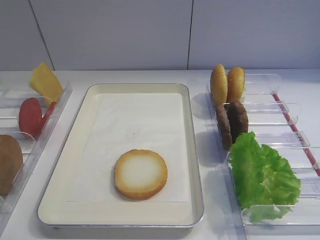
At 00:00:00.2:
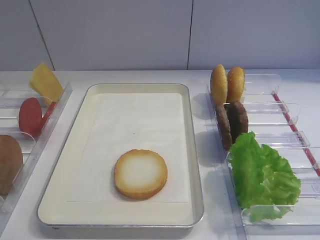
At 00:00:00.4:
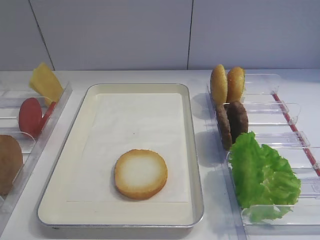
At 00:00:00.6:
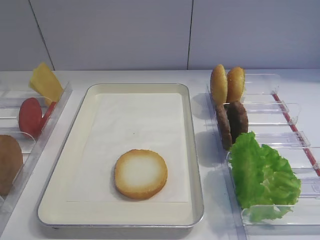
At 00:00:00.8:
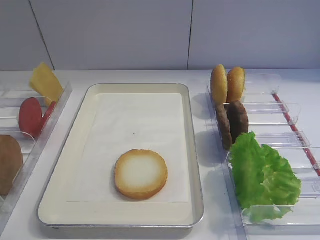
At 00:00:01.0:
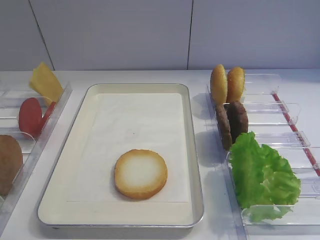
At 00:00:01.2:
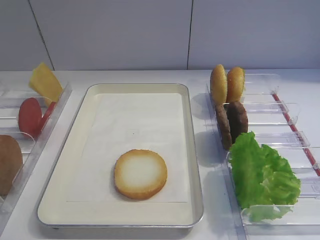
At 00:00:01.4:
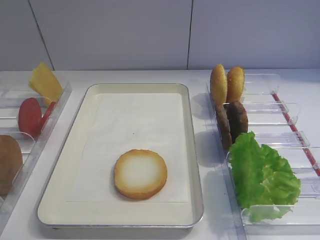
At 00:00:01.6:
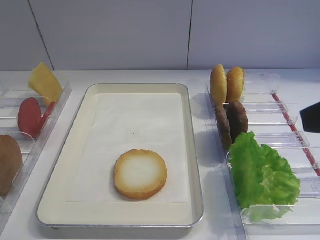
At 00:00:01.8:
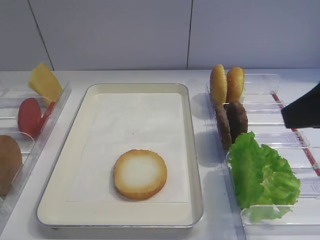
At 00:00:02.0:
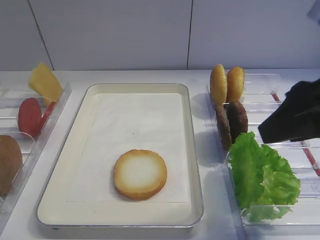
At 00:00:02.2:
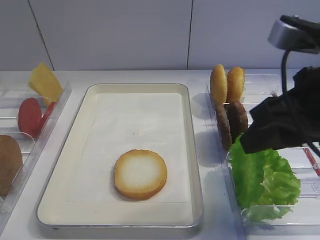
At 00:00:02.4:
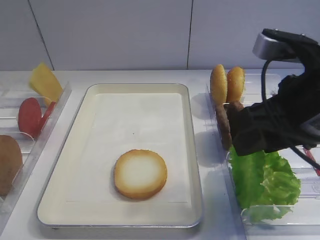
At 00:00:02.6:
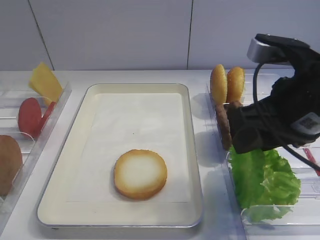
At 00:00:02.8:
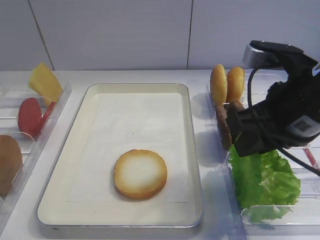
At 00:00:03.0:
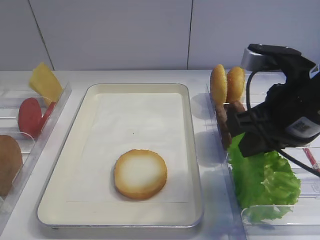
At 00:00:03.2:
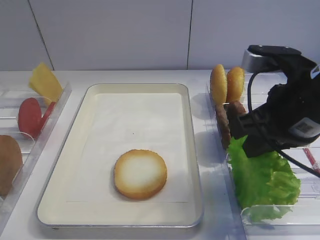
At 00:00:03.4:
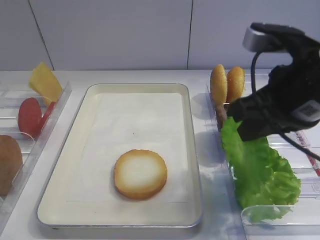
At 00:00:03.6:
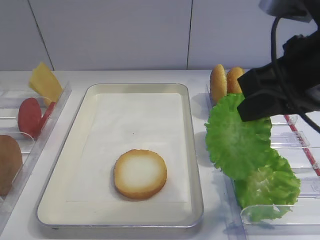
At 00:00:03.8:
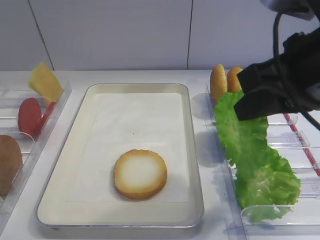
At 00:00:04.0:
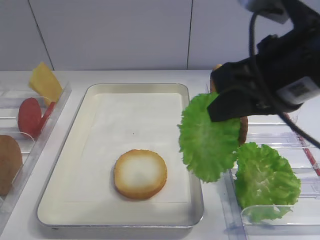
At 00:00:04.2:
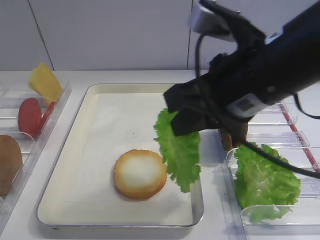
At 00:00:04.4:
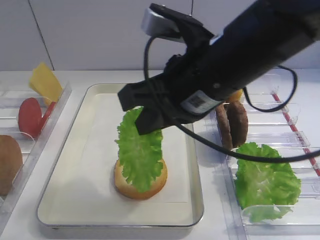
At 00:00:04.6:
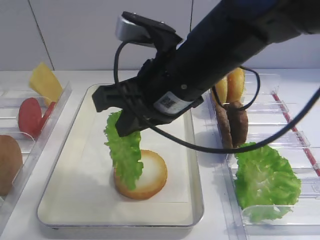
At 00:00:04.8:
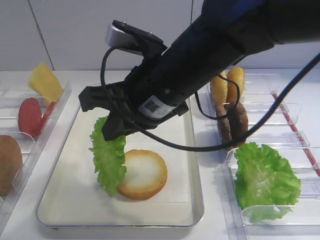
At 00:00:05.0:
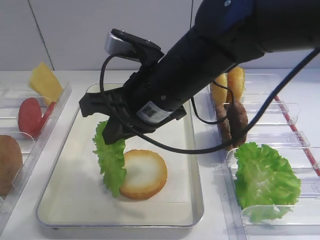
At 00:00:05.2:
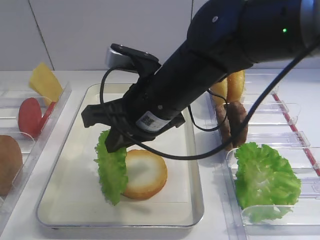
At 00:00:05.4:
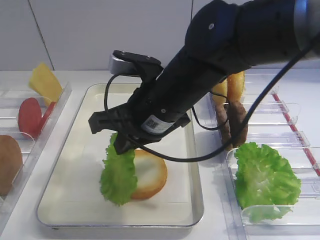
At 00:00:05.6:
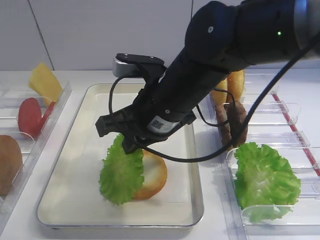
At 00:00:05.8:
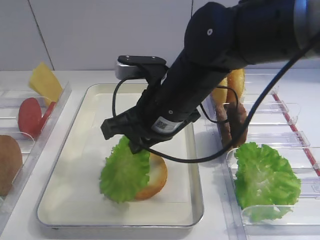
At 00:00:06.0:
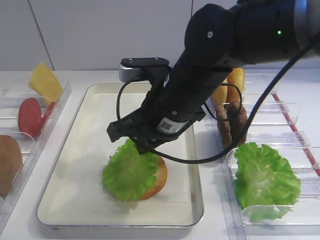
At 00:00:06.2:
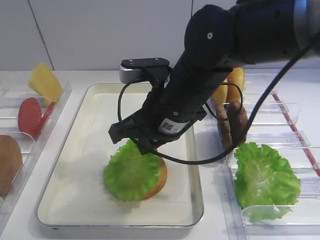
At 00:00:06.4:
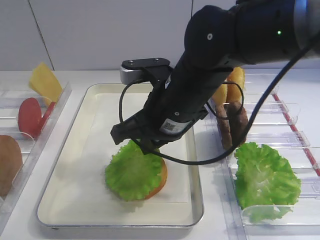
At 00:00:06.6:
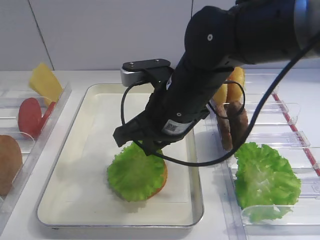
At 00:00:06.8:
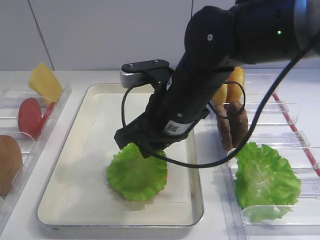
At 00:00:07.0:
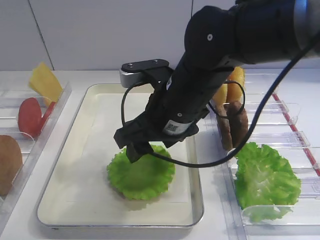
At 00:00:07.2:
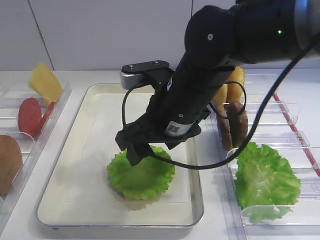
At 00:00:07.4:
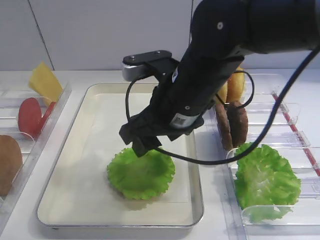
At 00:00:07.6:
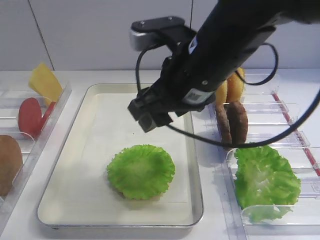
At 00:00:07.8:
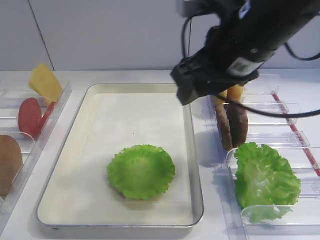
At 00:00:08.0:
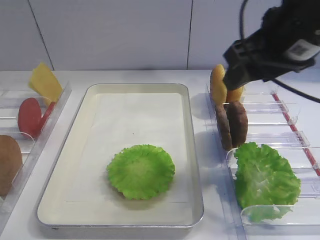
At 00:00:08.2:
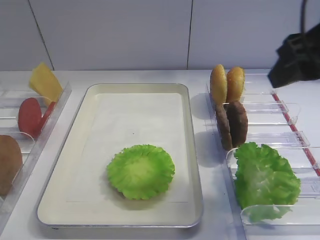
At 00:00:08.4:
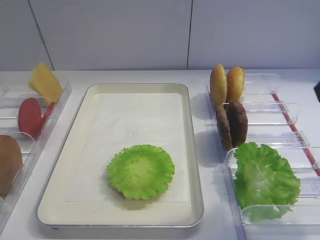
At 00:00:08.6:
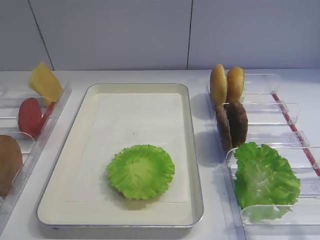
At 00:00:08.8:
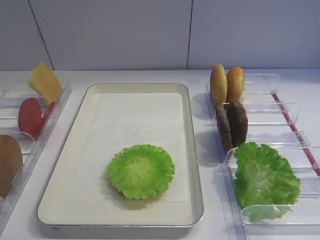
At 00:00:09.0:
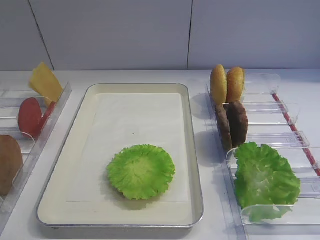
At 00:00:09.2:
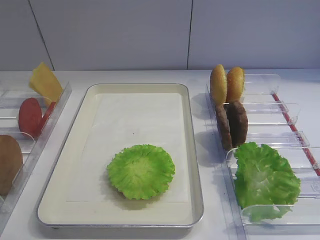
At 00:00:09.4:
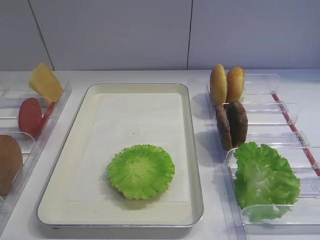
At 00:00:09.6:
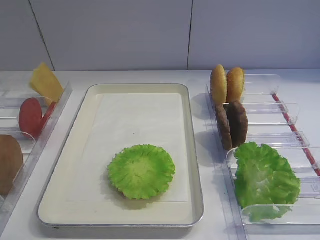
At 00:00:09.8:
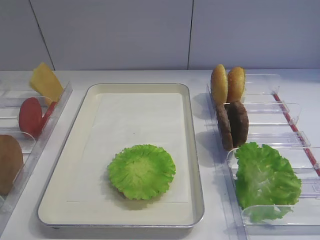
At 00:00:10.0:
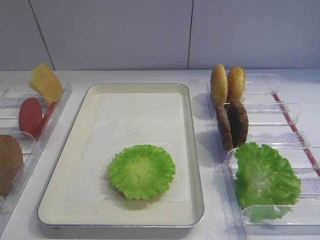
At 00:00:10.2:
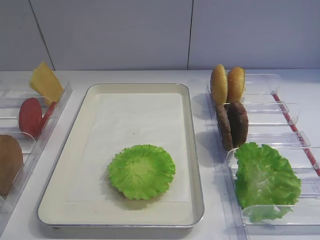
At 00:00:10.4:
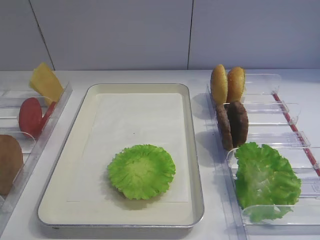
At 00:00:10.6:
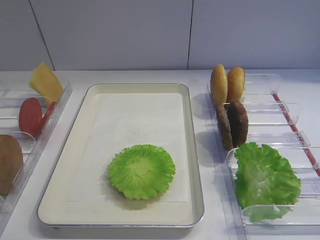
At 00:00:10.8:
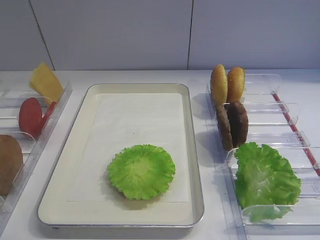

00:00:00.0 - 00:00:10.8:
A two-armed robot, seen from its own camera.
Step, 00:00:00.0 - 00:00:03.6: Pick up the lettuce leaf with the right gripper.
Step, 00:00:03.8 - 00:00:07.0: Place the lettuce leaf on the bread slice with the right gripper.
00:00:01.6 - 00:00:03.0: The right gripper heads forward, downward and to the left, covering roughly 15 cm, and closes up.
00:00:03.0 - 00:00:04.6: The right gripper moves to the left, some 15 cm.
00:00:04.6 - 00:00:06.2: The right gripper goes approximately 5 cm downward.
00:00:06.2 - 00:00:07.8: The right gripper heads upward and to the right, covering about 10 cm, and opens.
00:00:07.8 - 00:00:09.2: The right gripper moves backward and to the right, some 30 cm.

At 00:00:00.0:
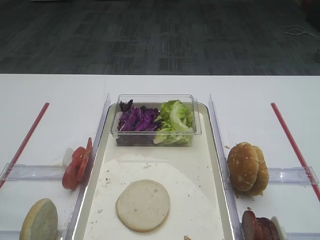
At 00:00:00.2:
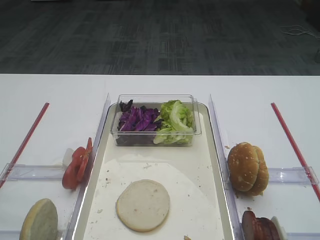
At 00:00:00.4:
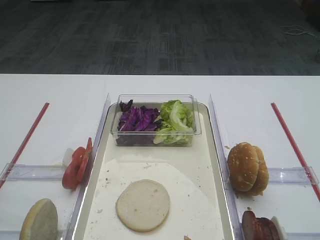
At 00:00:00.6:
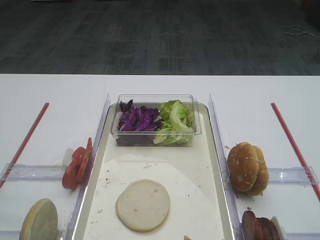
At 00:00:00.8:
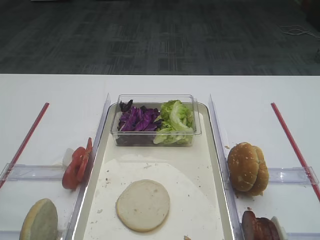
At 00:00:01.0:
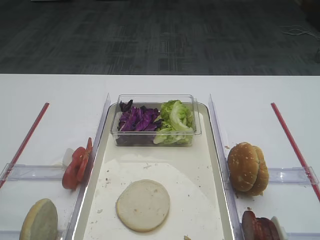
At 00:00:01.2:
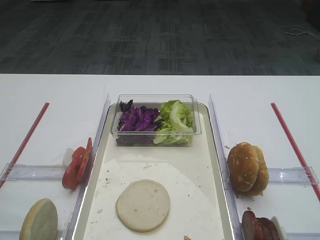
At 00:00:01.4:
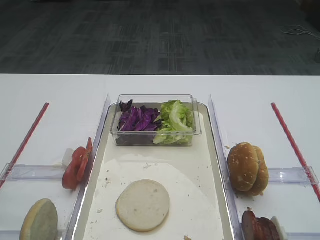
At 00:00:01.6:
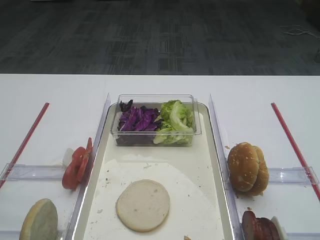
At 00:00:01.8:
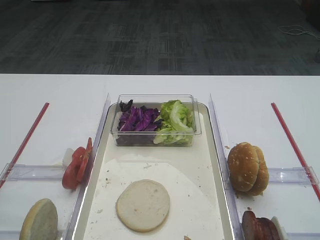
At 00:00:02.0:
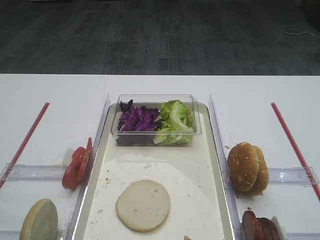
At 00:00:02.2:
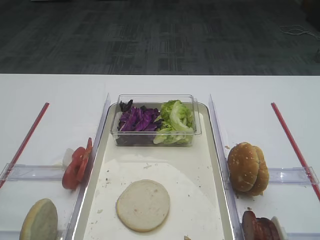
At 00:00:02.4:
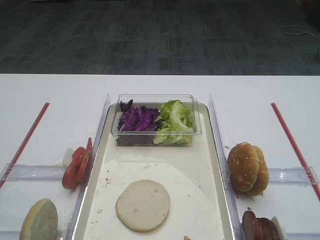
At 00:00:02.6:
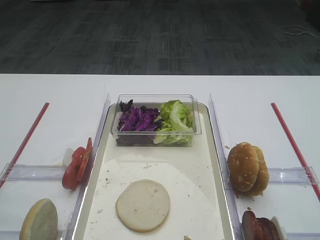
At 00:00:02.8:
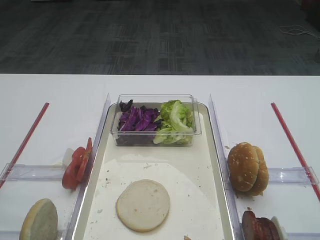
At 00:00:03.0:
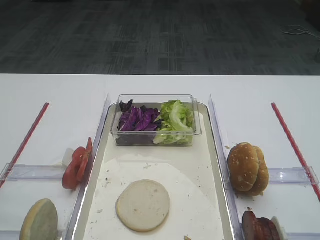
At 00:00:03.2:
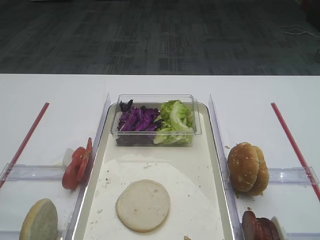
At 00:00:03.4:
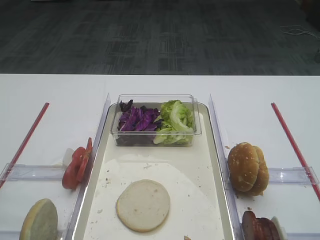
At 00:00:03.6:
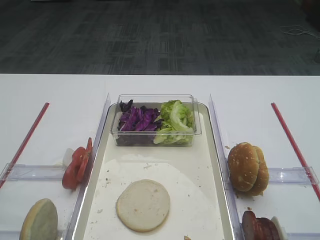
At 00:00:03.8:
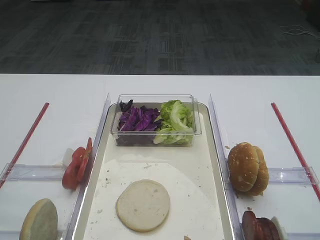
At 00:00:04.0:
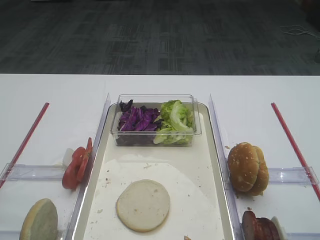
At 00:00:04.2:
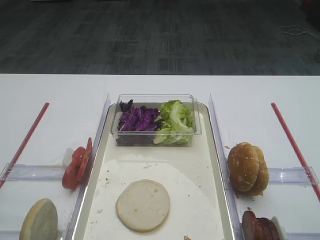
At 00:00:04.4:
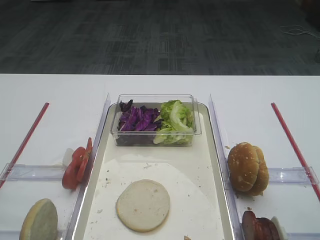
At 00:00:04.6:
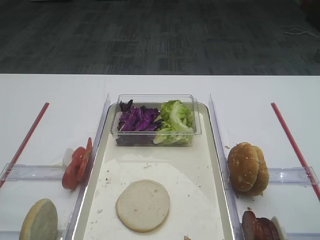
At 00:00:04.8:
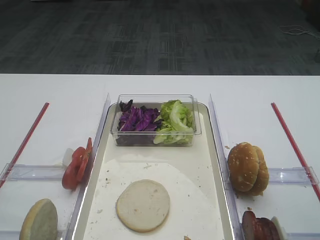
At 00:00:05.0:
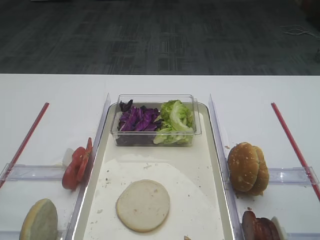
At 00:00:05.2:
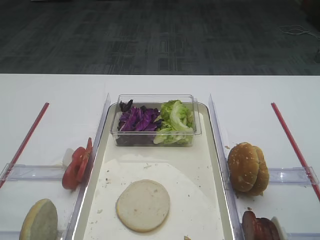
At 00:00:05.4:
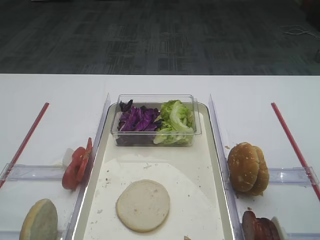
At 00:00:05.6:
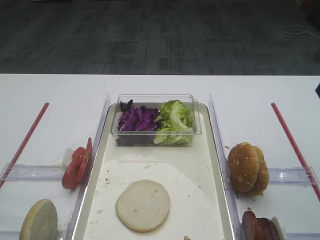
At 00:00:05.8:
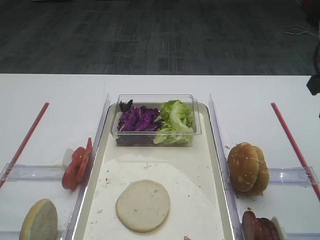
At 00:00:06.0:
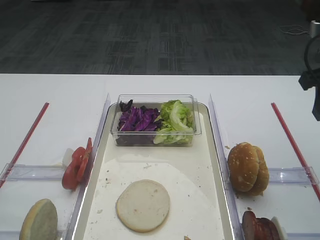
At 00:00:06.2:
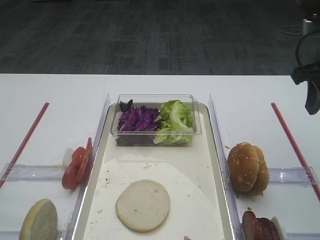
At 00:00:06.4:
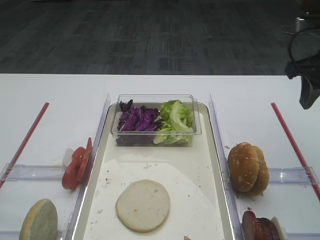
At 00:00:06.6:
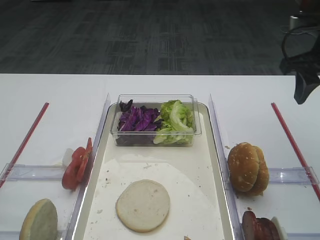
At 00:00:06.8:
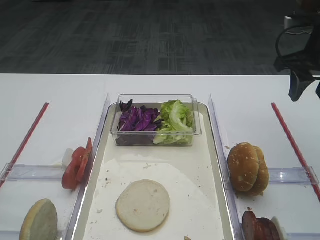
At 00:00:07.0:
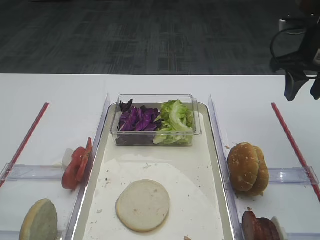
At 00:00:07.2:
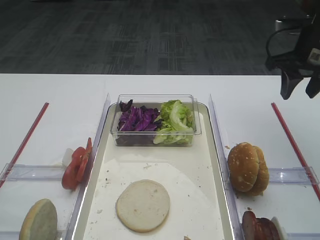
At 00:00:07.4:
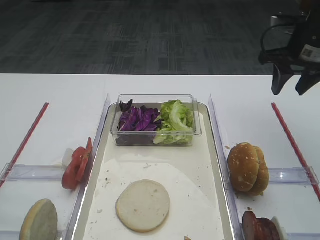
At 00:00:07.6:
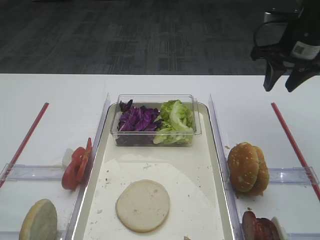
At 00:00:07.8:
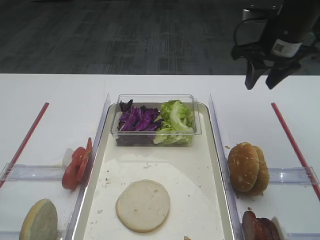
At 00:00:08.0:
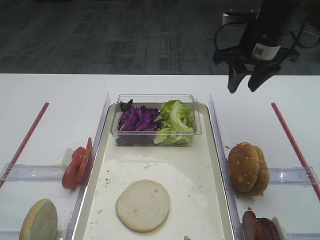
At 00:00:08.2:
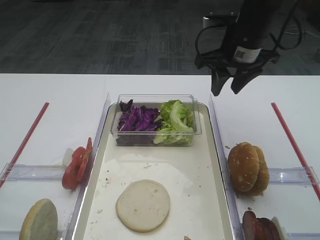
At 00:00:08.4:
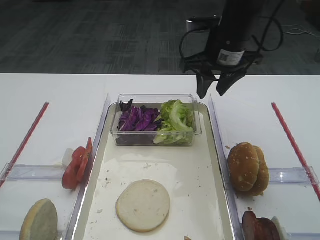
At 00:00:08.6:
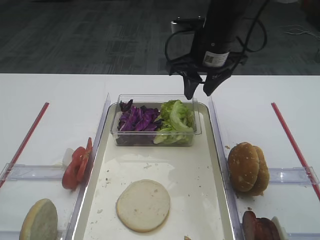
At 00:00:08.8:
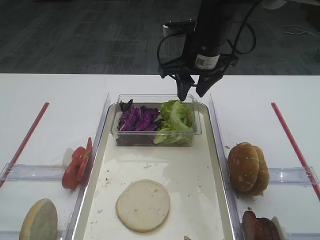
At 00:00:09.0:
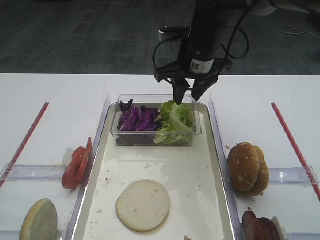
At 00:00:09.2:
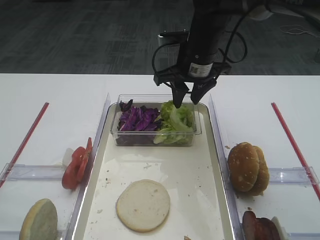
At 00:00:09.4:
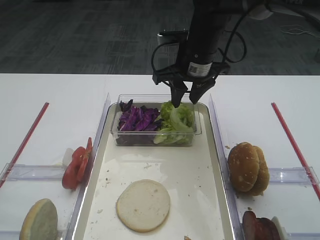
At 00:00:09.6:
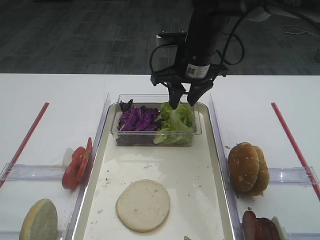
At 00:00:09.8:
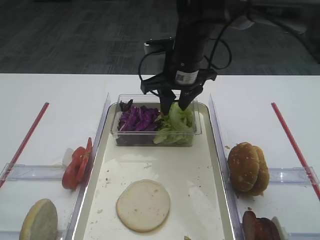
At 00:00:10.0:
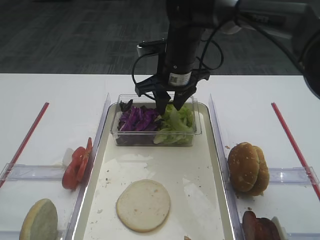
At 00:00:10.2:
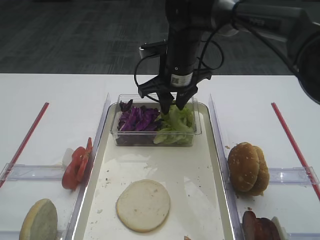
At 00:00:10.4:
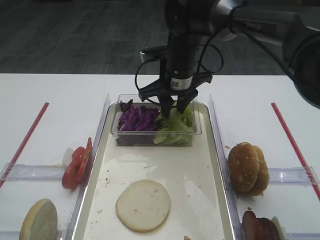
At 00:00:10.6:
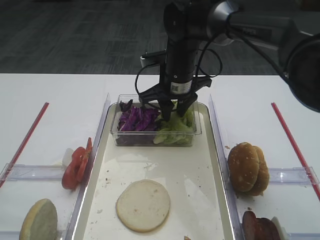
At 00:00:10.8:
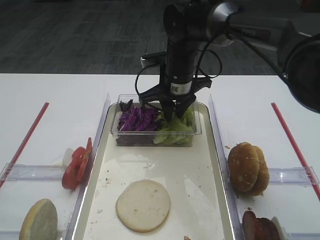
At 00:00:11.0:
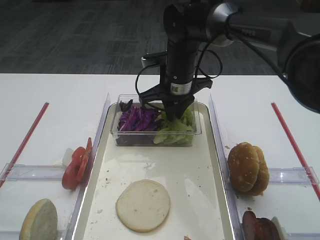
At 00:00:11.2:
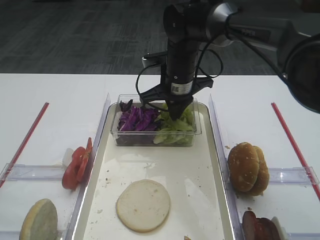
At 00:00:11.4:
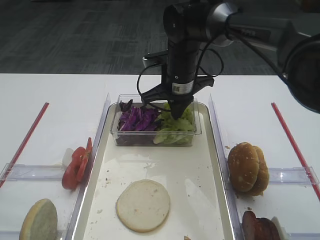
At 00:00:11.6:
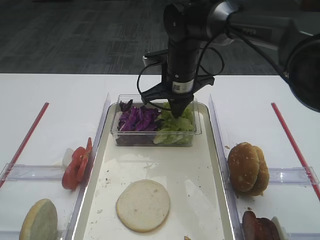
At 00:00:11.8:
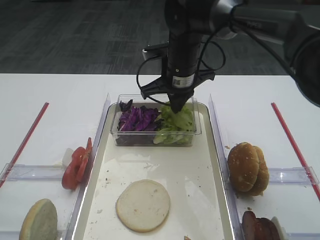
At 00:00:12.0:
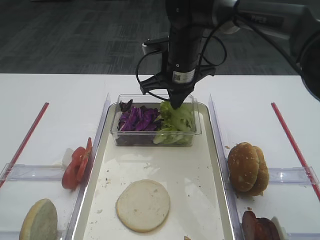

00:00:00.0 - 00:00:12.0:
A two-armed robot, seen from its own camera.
00:00:04.4 - 00:00:06.0: The right gripper shifts some 15 cm forward.
00:00:06.0 - 00:00:07.6: The right gripper shifts some 10 cm forward.
00:00:07.6 - 00:00:09.0: The right gripper goes approximately 20 cm to the left.
00:00:09.0 - 00:00:10.4: The right gripper moves about 5 cm.
00:00:10.4 - 00:00:12.0: The right gripper closes up.
